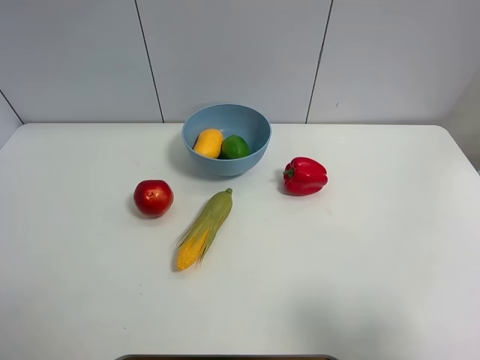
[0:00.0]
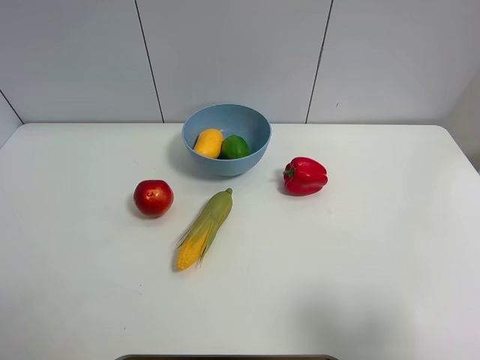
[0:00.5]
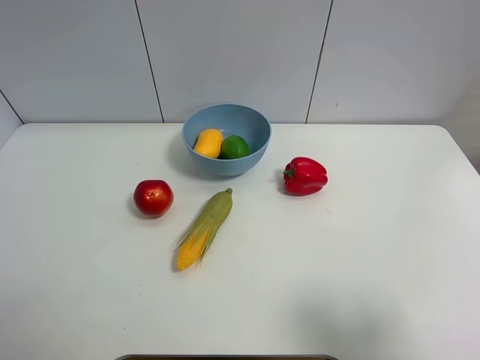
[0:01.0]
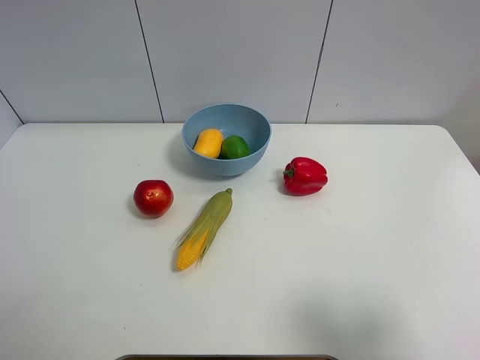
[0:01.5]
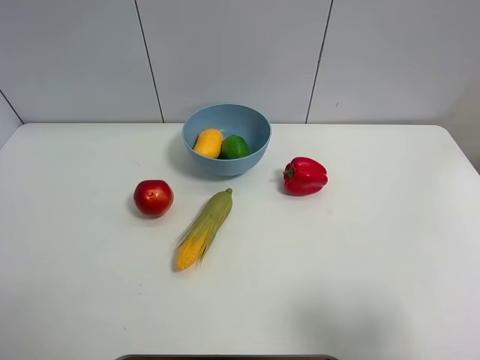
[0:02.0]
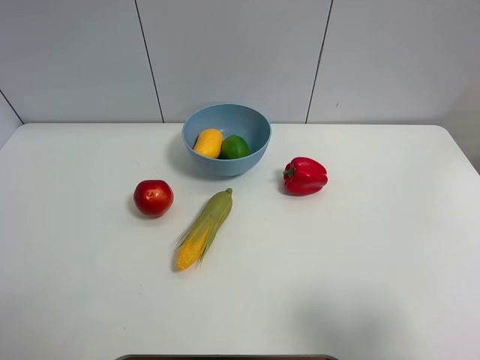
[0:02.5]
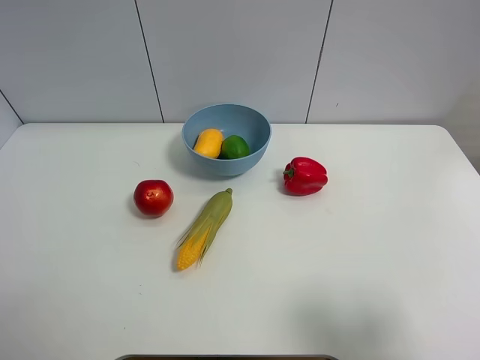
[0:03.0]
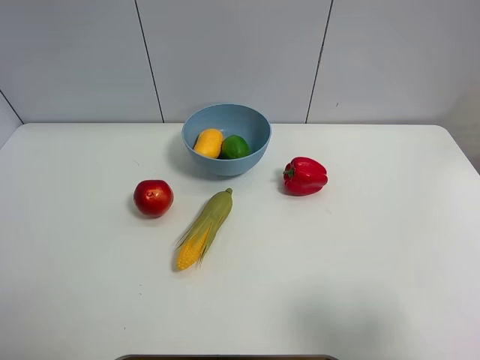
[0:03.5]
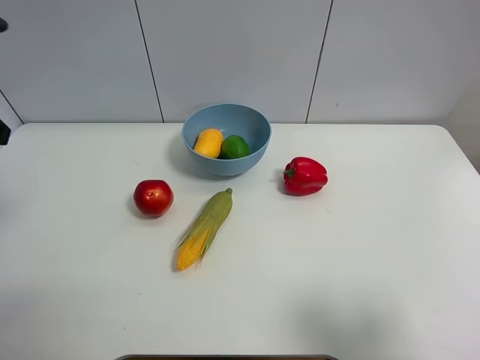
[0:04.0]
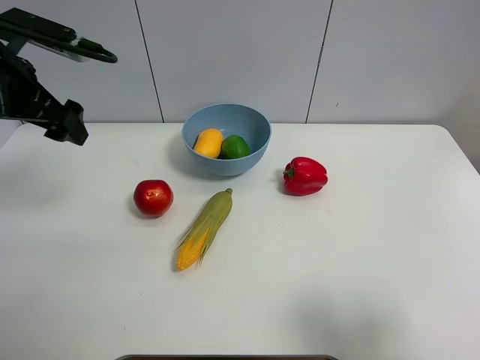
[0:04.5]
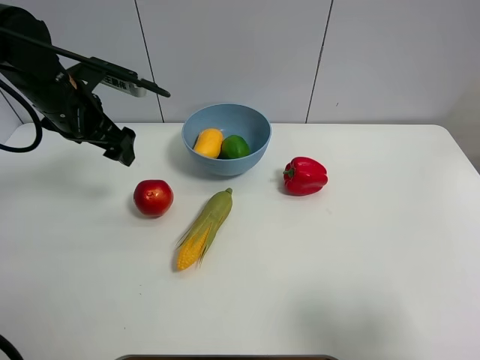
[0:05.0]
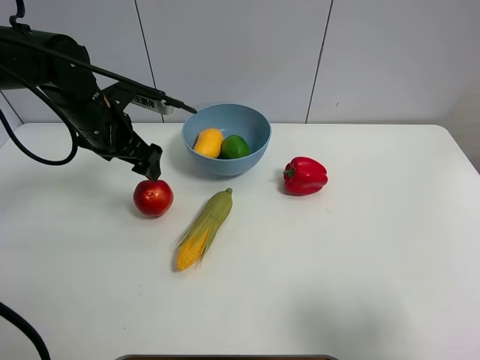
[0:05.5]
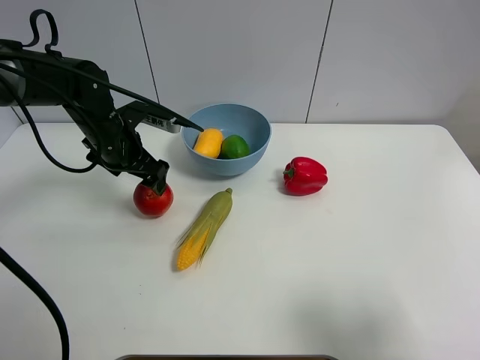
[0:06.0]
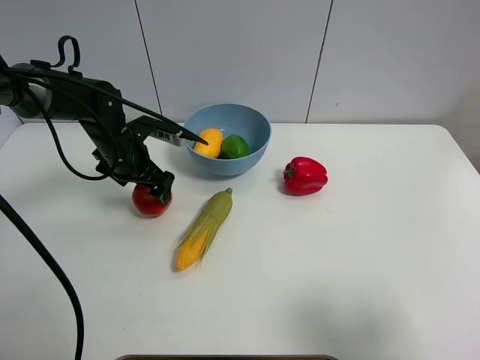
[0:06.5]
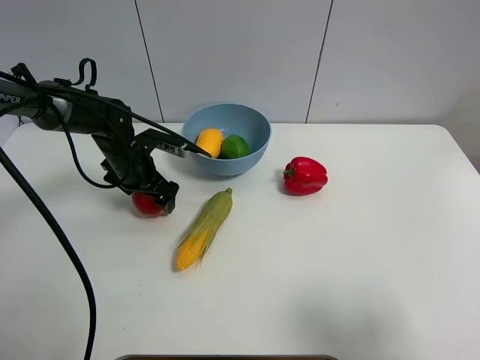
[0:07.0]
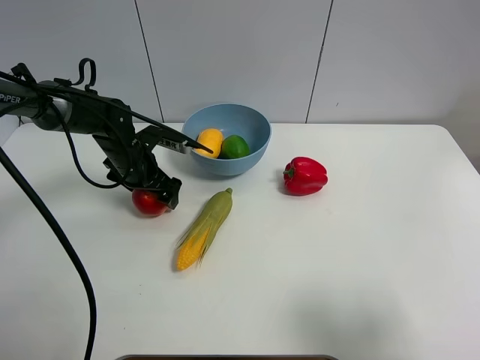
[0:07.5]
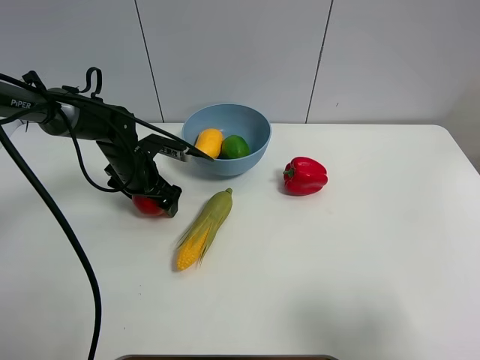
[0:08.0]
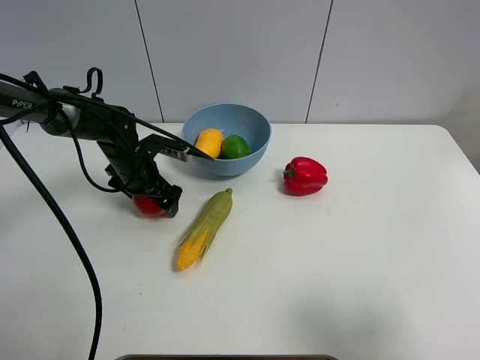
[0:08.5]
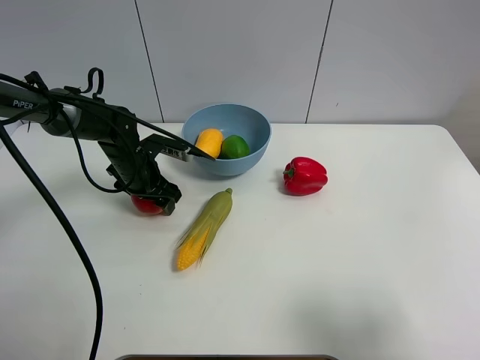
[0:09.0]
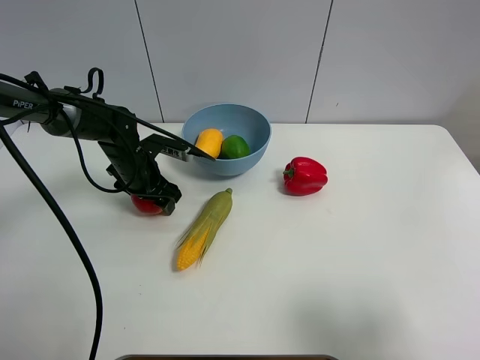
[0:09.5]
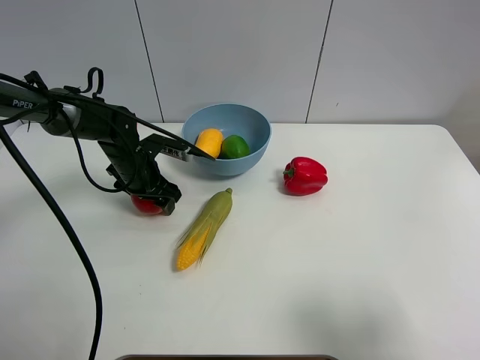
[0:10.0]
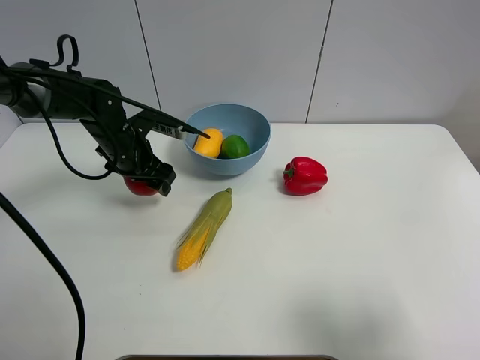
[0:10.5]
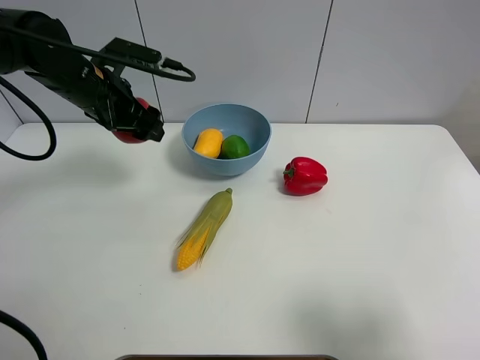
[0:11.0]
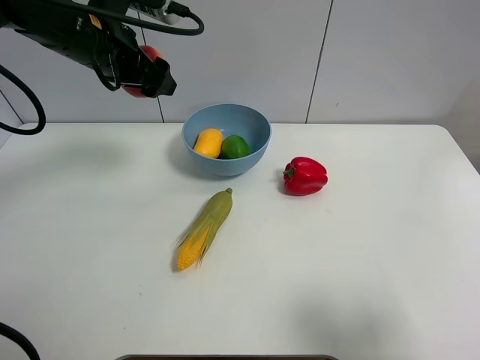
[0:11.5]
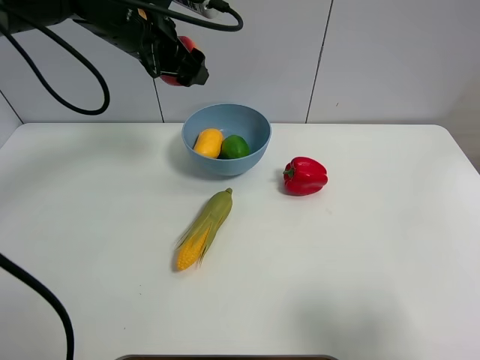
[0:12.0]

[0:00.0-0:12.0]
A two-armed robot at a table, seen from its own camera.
Task of the whole recording: Put the three fruits on the table into a bowl.
Step, 0.0 to 8.5 s: Grasp the pomegranate with left gripper.
0.0 to 2.0 s: Neither gripper changes place.
4.0 to 6.0 s: The left gripper travels downward, forward and to the right by approximately 25 cm.
6.0 to 8.0 s: The left gripper travels downward by some 10 cm.
8.0 to 10.0 s: The left gripper closes.
10.0 to 12.0 s: The left gripper heads upward, covering roughly 20 cm.

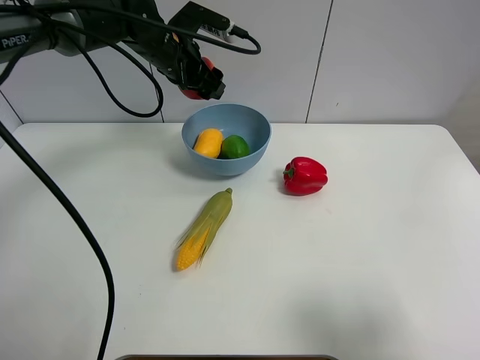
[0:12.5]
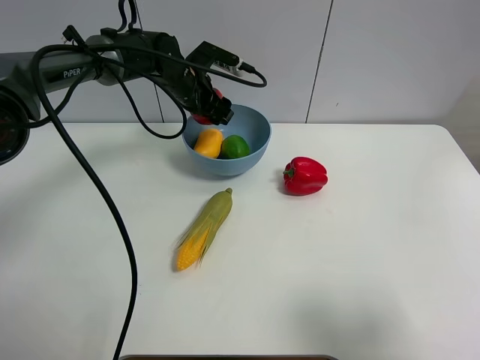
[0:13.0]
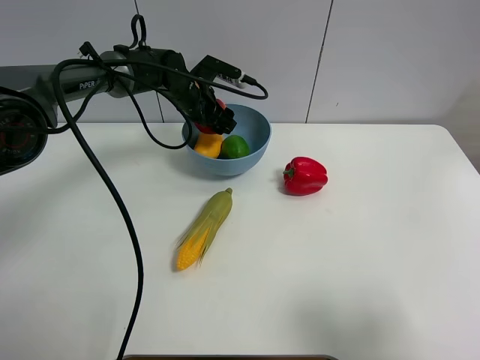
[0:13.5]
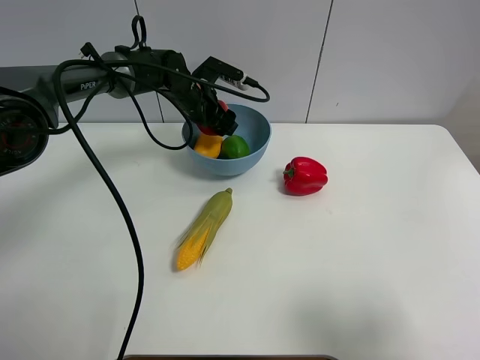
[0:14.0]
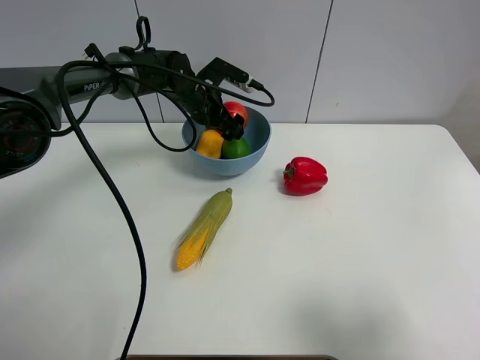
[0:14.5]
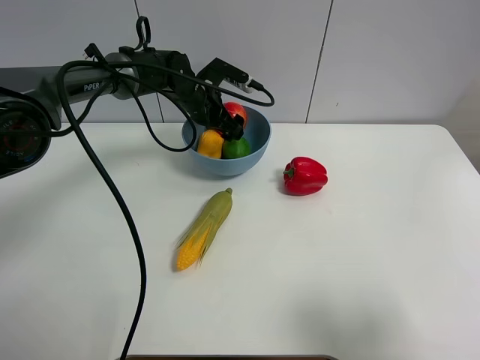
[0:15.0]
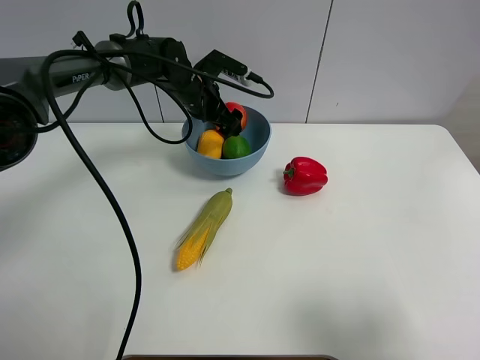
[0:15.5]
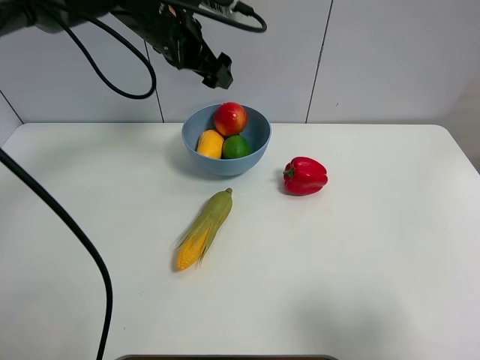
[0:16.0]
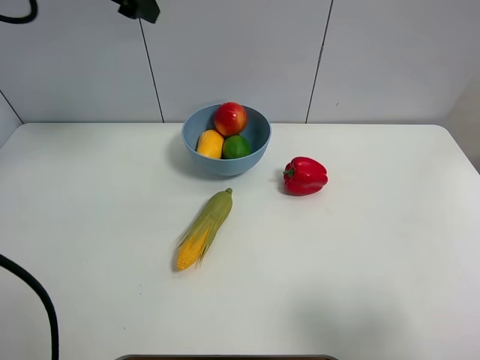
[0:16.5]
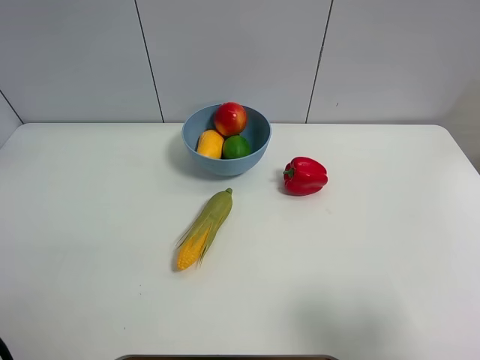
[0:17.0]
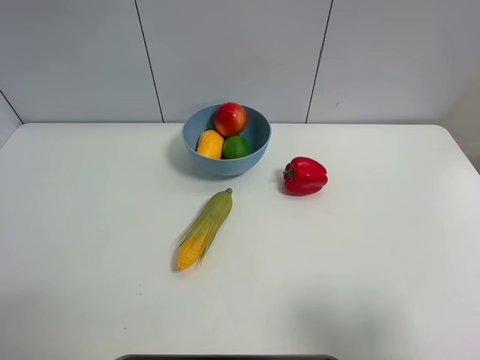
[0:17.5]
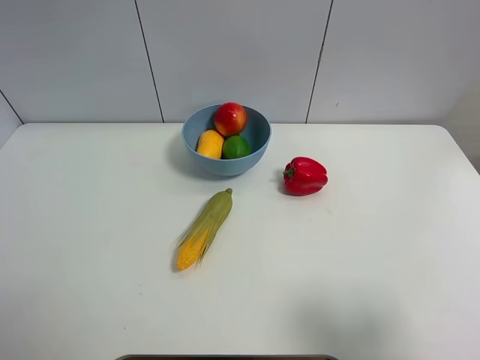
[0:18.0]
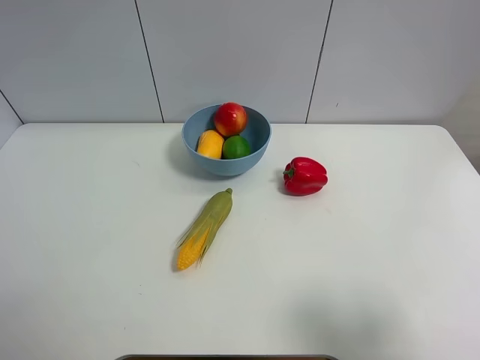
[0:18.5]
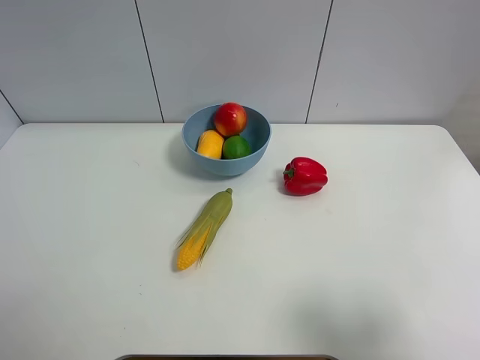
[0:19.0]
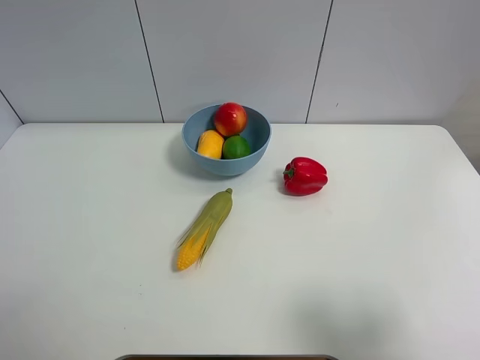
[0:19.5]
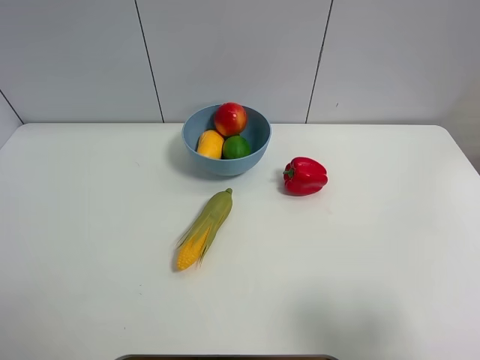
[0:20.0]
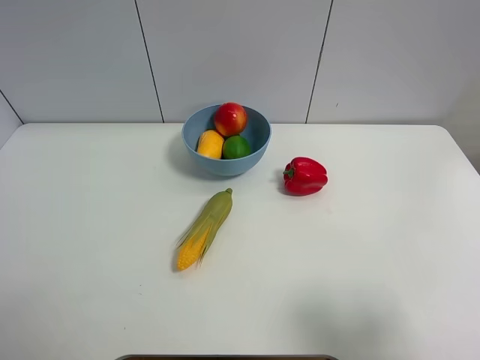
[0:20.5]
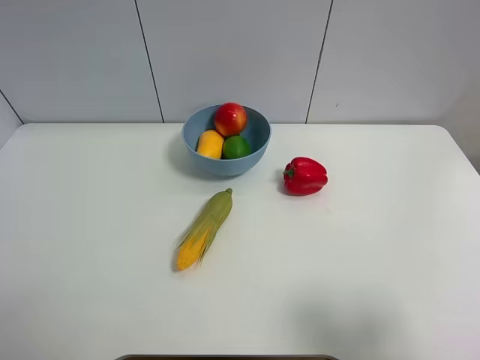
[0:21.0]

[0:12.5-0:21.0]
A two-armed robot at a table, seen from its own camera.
Task of the whole recording: Put the three fruits on the table into a bowl.
Step, 12.5 to 14.5 s: Place the pomegranate in the blue bowl with left gripper.
12.5 to 14.5 s: The left gripper goes approximately 10 cm downward, and opens.
14.5 to 16.5 s: The left gripper moves upward and to the left, about 30 cm.
16.5 to 19.0 s: The left gripper travels backward by some 40 cm.

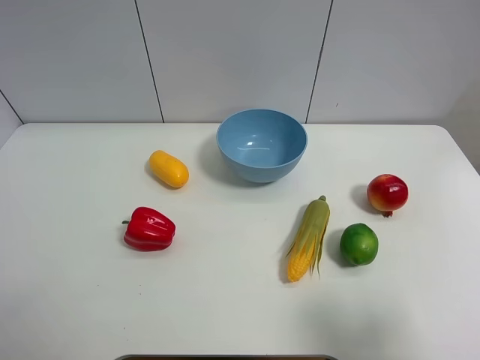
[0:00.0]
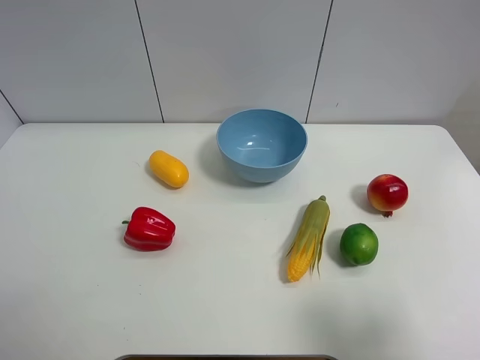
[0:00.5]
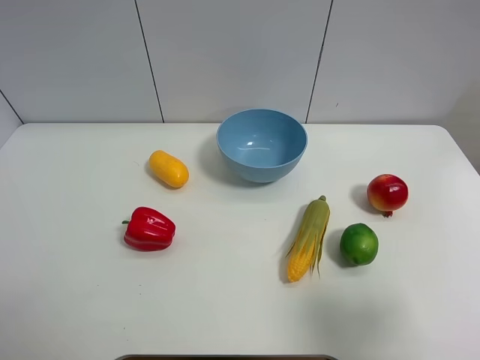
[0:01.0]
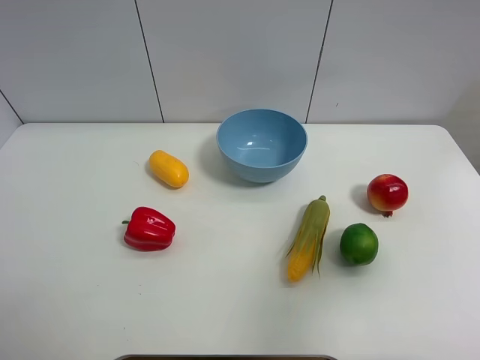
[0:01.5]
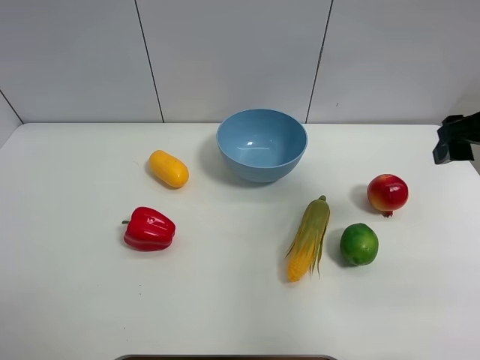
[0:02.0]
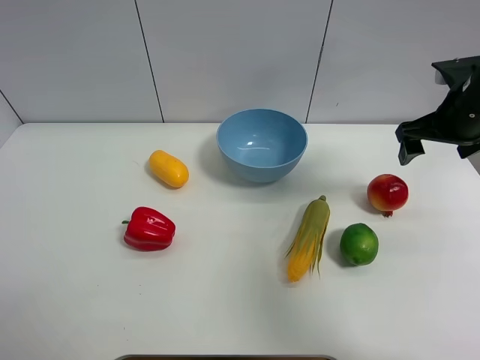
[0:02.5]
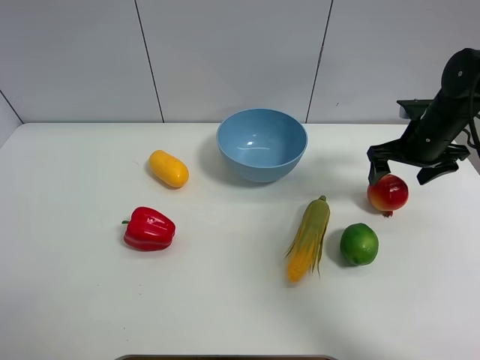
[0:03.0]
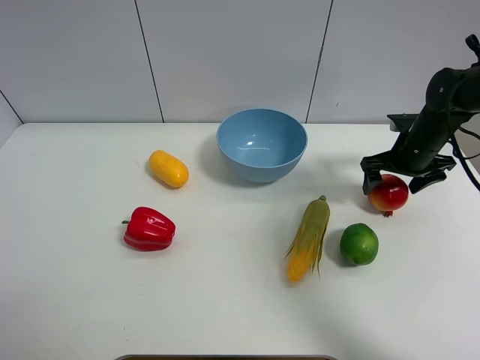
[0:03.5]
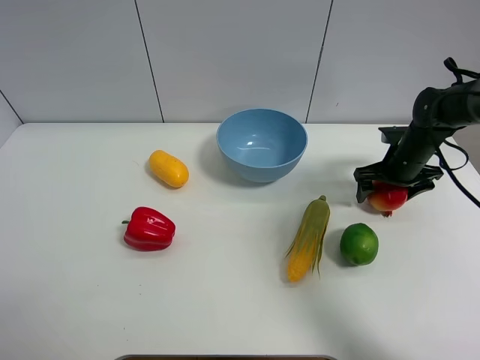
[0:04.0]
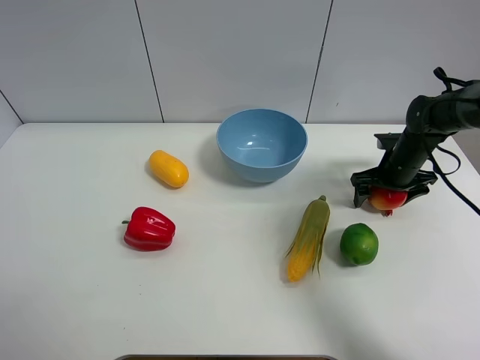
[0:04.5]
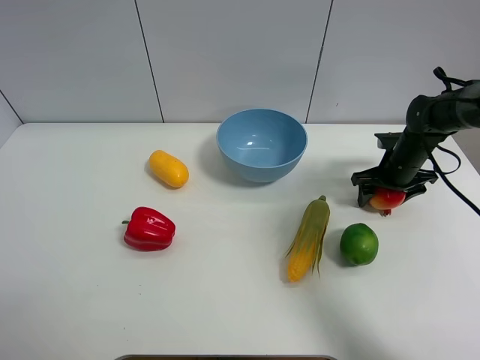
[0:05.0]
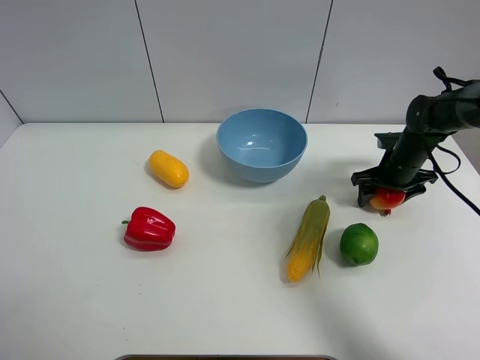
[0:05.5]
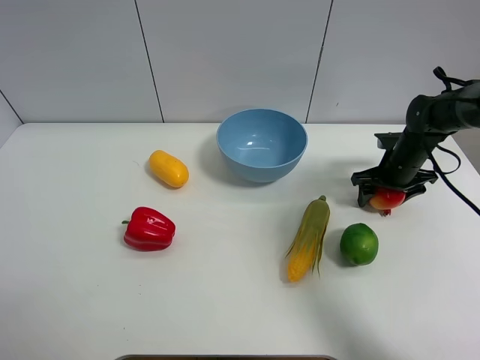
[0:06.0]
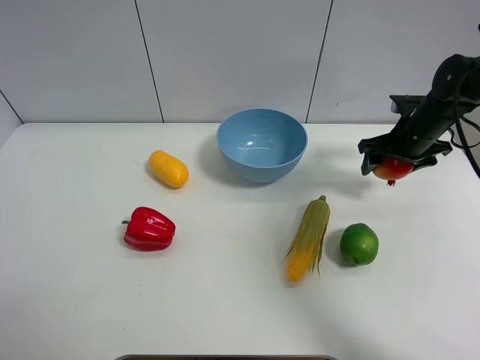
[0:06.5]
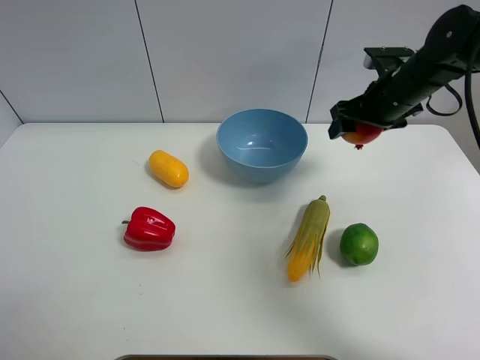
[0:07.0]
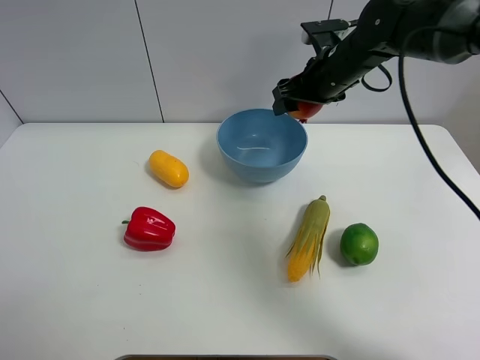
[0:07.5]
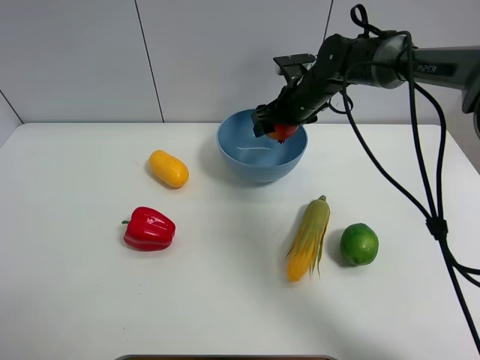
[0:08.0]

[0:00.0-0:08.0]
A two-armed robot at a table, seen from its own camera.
Task of the whole recording: Put the three fruits on the table into a bowl.
Step, 0.0 to 5.0 s: Grasp the pomegranate with right gripper.
0.0 to 2.0 s: The right gripper heads forward, covering some 25 cm.
2.0 to 4.0 s: The right gripper is displaced downward and forward by roughly 25 cm.
4.0 to 6.0 s: The right gripper closes up.
6.0 to 8.0 s: The right gripper shifts approximately 20 cm to the left and upward.
